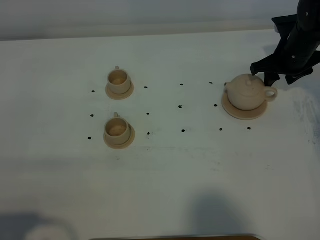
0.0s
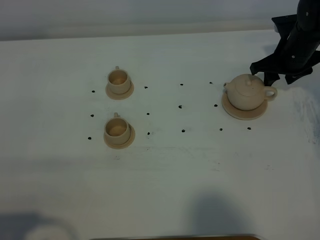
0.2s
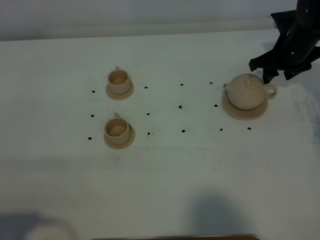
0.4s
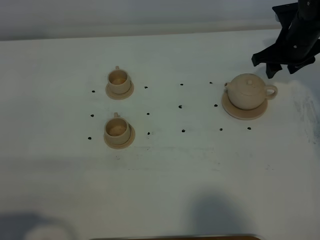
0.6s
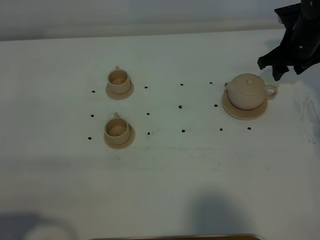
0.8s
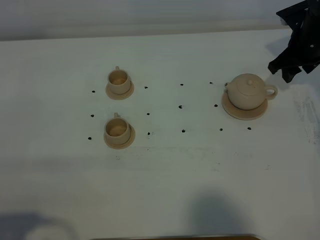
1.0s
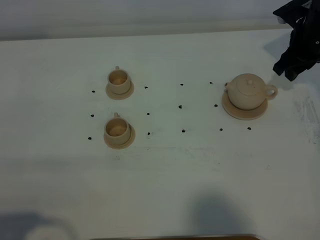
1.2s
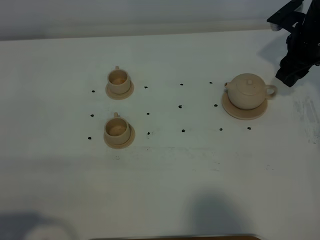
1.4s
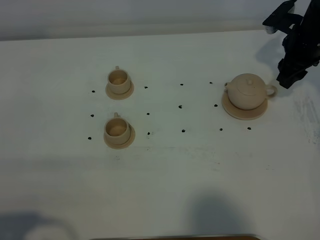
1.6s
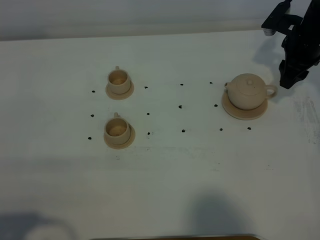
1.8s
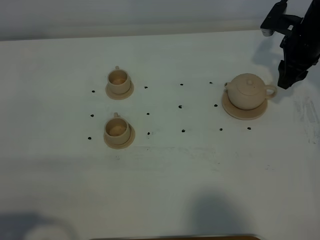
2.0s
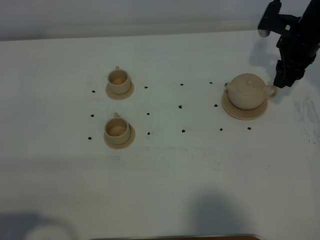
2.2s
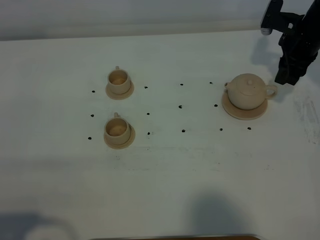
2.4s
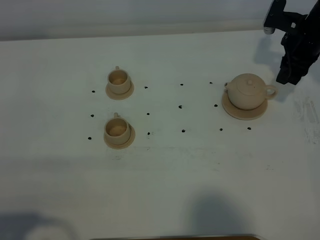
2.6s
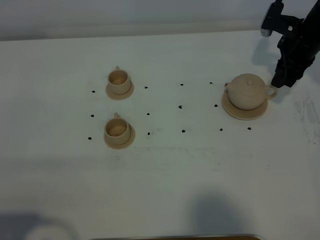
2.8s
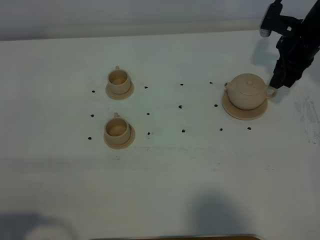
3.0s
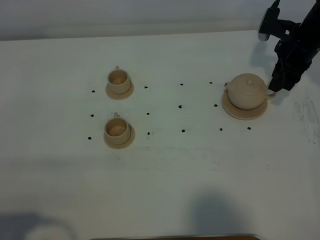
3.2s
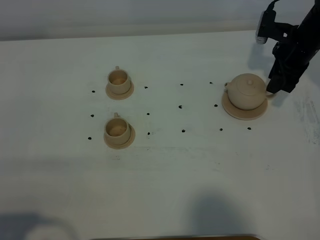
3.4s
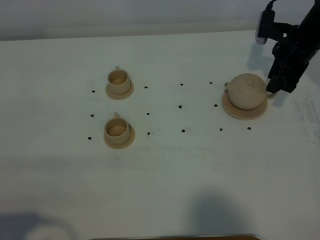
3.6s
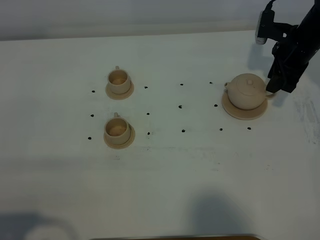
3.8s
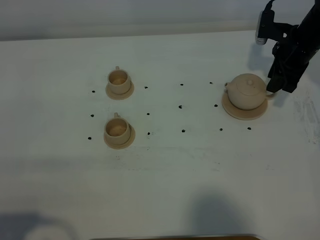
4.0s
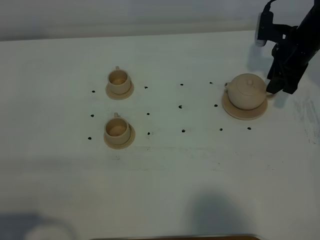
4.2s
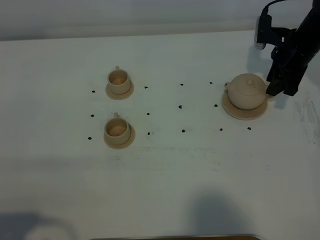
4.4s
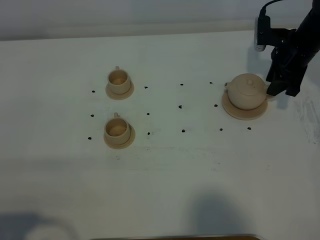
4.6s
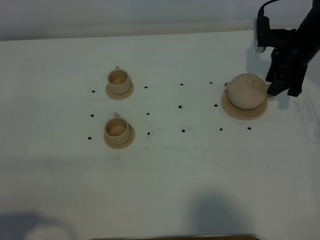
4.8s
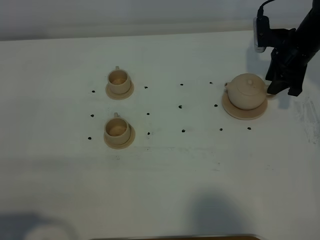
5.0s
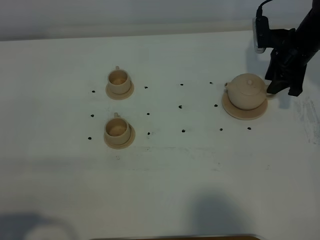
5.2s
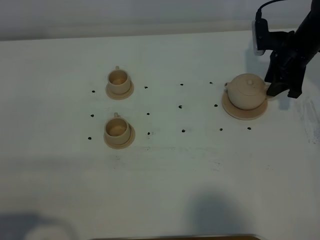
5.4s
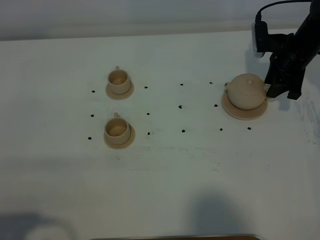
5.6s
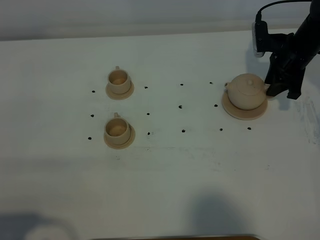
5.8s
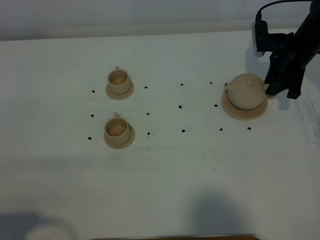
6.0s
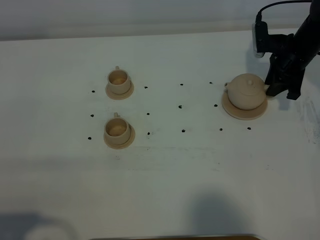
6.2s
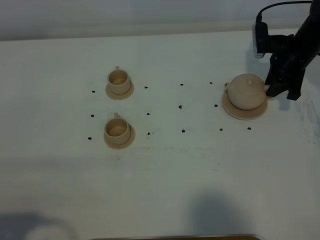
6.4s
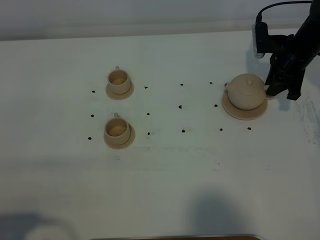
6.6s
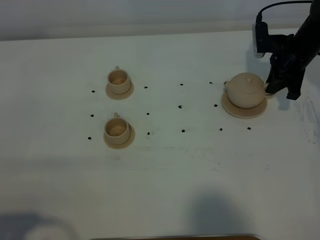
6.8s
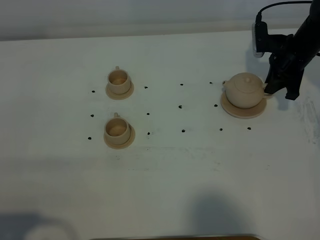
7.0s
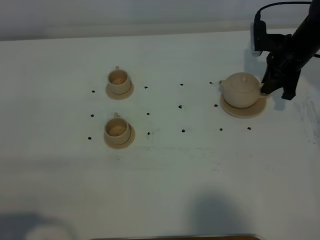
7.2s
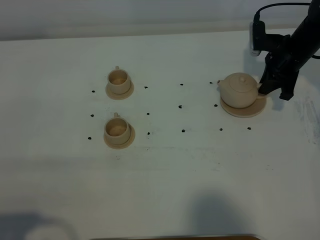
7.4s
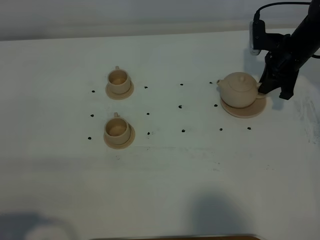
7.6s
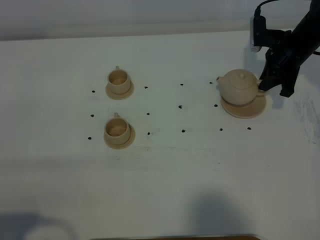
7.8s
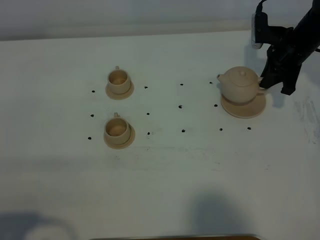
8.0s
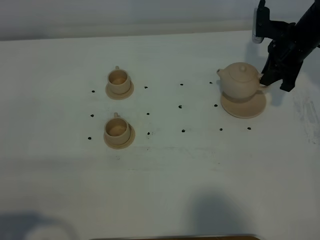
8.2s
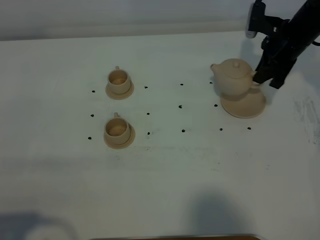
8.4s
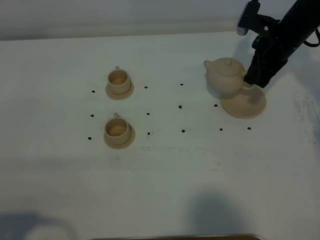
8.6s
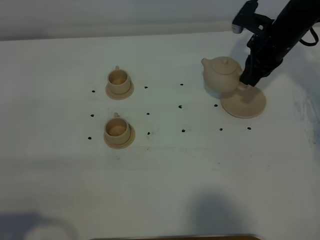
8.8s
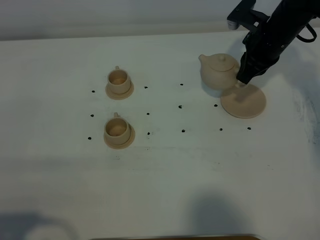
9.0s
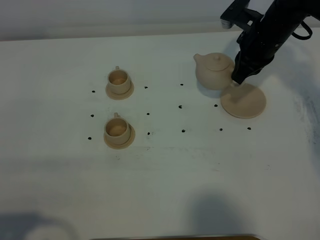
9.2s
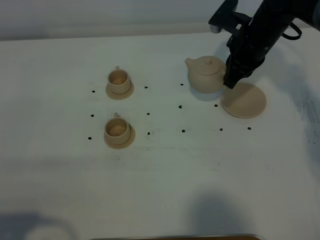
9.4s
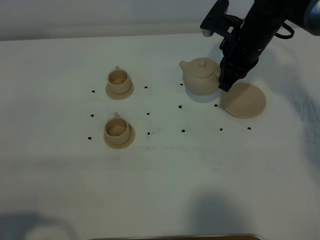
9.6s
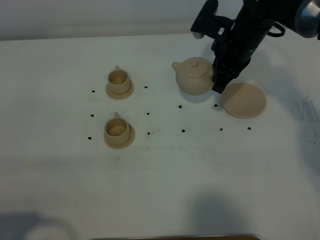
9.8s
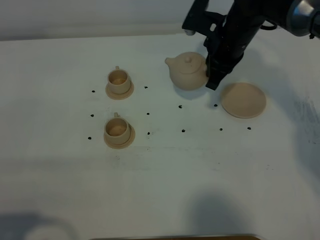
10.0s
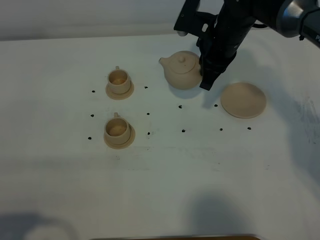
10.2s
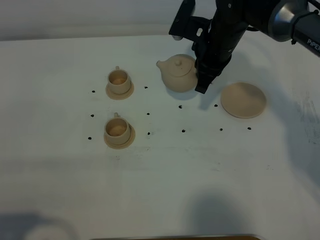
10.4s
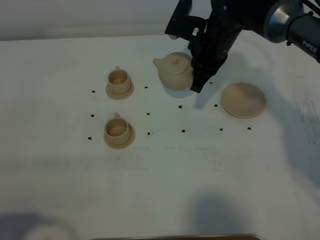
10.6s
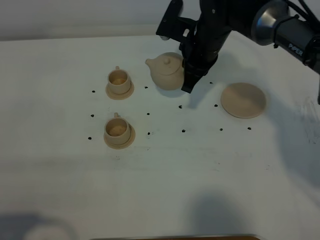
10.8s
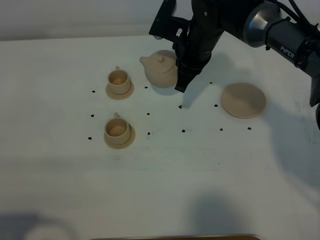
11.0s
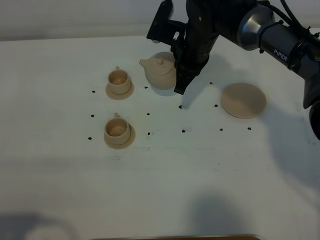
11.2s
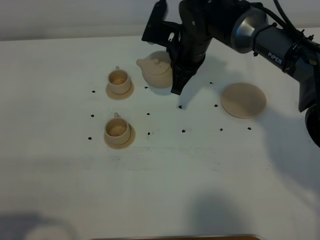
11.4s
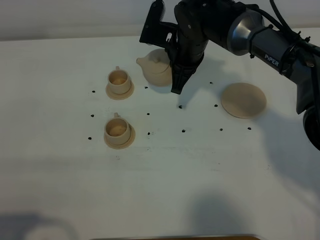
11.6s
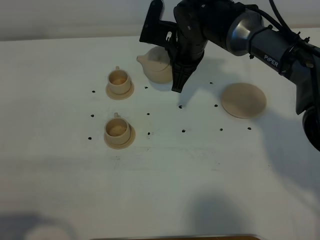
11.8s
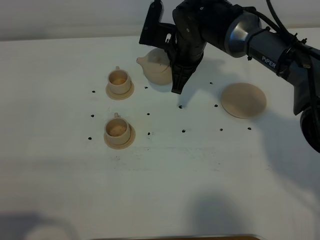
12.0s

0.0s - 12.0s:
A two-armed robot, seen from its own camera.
Task of the whole recording: grasp the brown teapot and pour the tea into the two brown teacups one by one, put the brown teapot back in its original place.
Step, 0.0s - 8.2s: Pick up the teapot with the right gripper.
1.6s - 3.0s: The grippers move only a little.
3.0s - 4.4s: The grippers make only small movements.
4.4s - 6.0s: The grippers make only small movements.
6.0s - 7.6s: The right gripper closes.
7.6s - 9.0s: The right gripper is displaced to the left and upward by about 10 cm.
9.0s - 10.4s: The right gripper goes roughly 10 cm to the left.
10.4s - 12.0s: The right gripper travels to the left by roughly 5 cm.

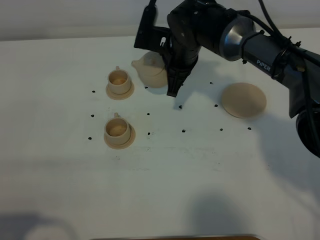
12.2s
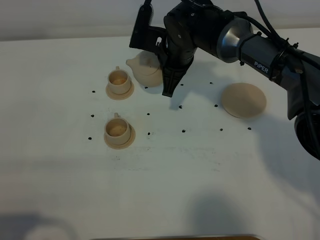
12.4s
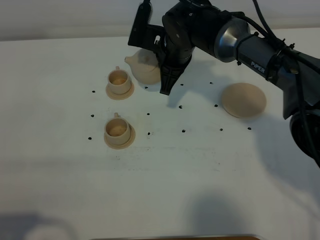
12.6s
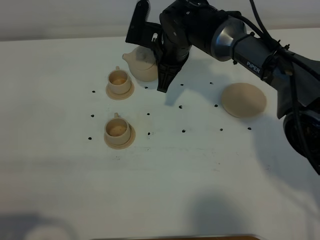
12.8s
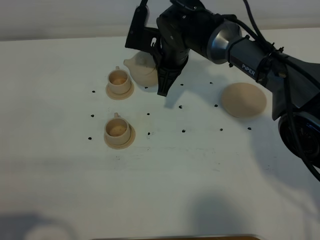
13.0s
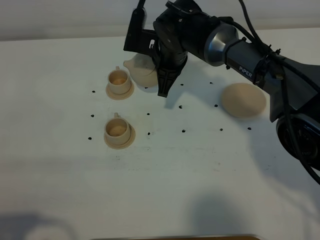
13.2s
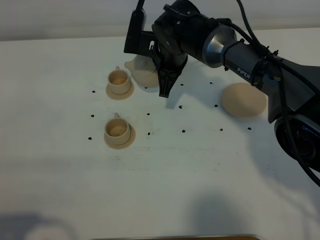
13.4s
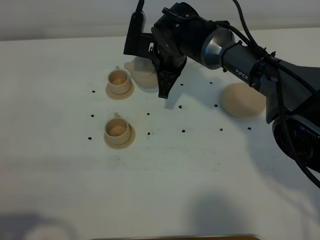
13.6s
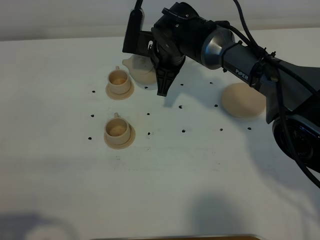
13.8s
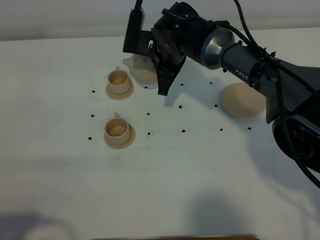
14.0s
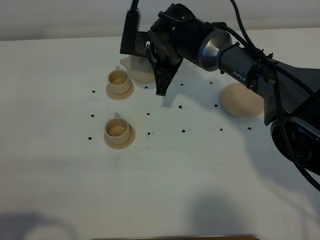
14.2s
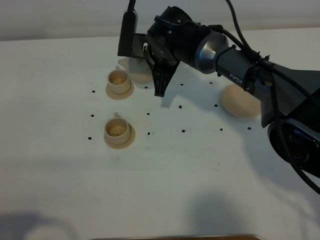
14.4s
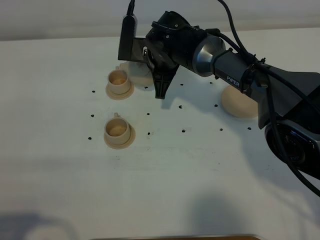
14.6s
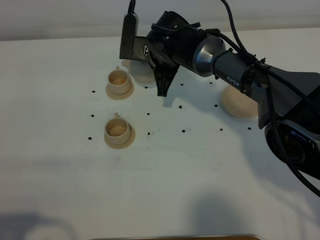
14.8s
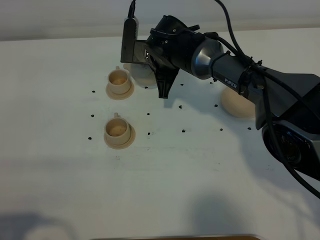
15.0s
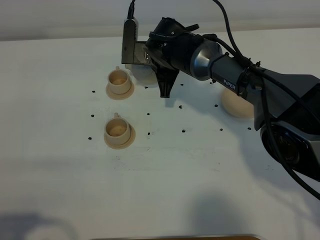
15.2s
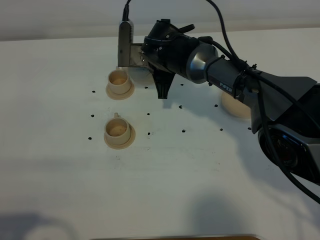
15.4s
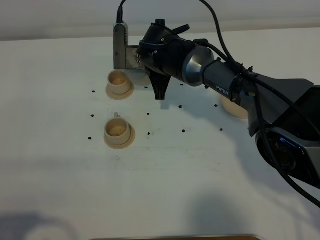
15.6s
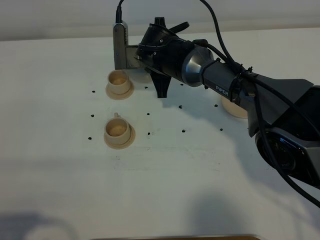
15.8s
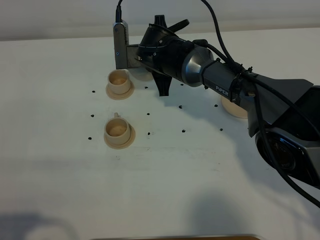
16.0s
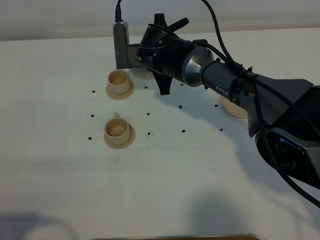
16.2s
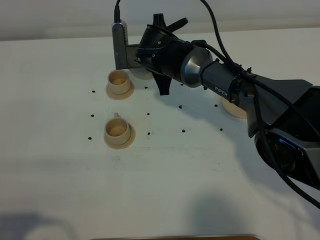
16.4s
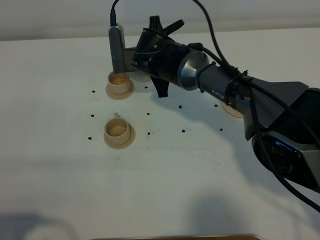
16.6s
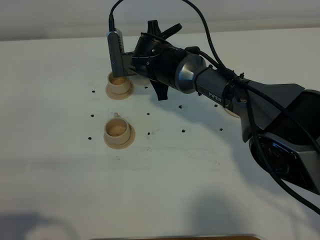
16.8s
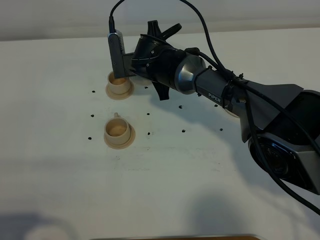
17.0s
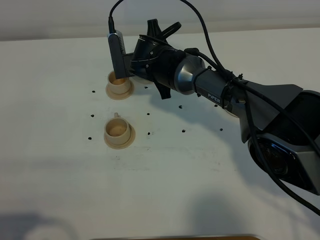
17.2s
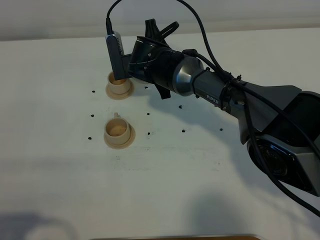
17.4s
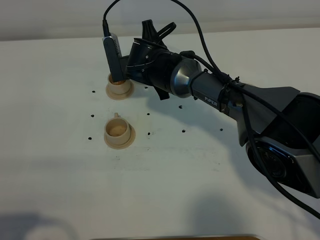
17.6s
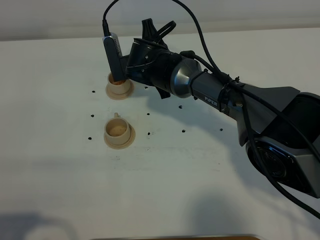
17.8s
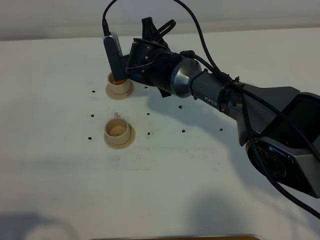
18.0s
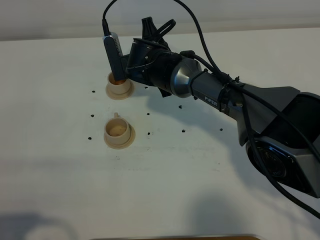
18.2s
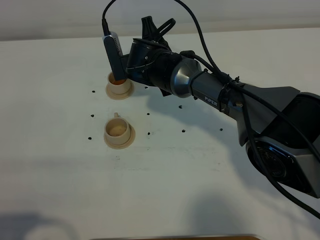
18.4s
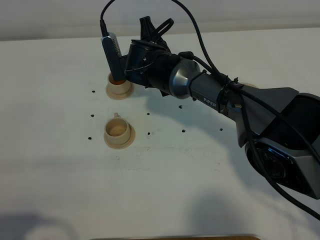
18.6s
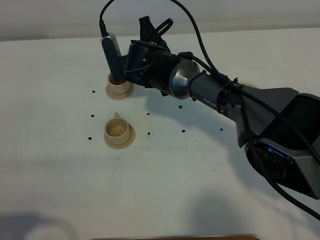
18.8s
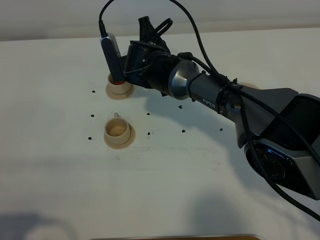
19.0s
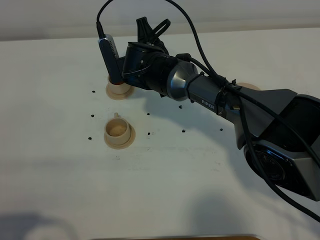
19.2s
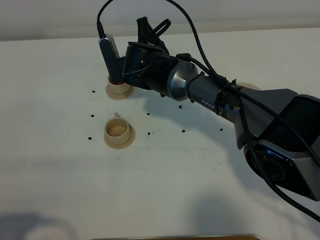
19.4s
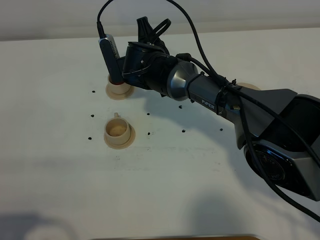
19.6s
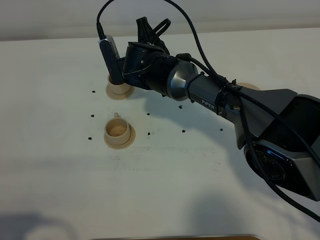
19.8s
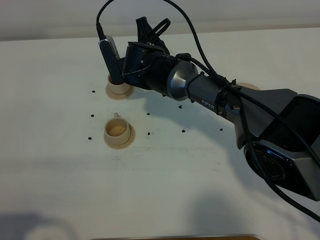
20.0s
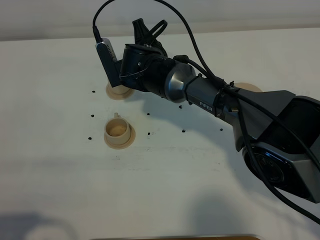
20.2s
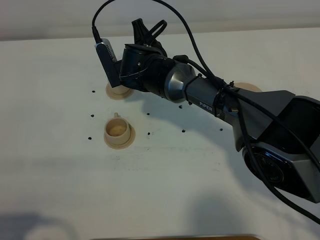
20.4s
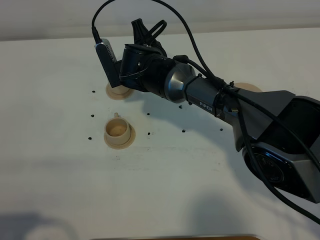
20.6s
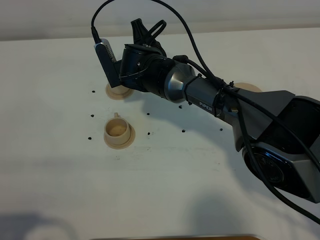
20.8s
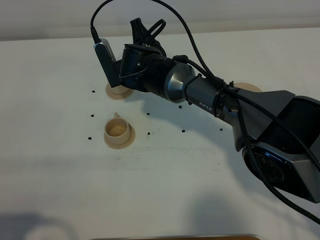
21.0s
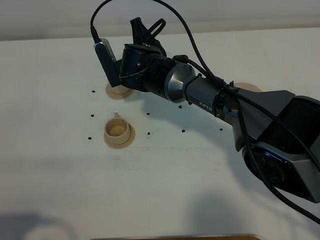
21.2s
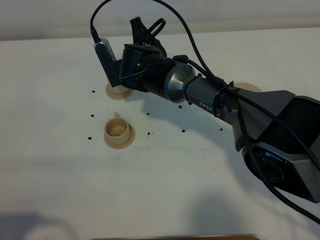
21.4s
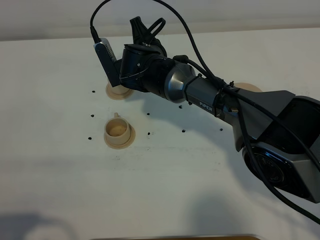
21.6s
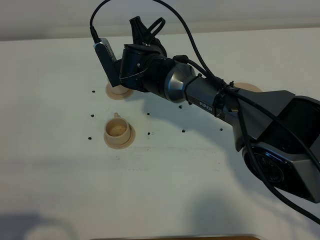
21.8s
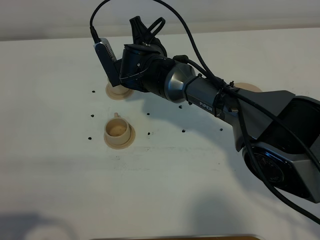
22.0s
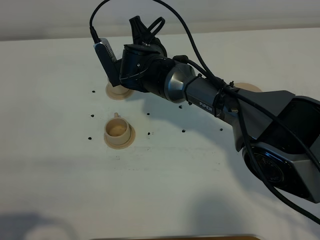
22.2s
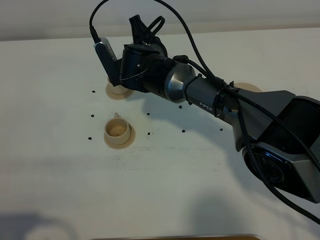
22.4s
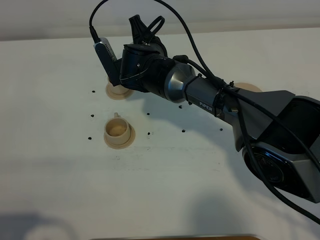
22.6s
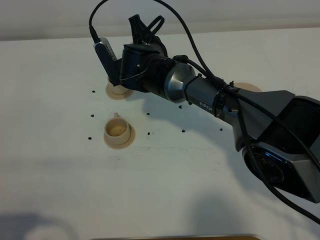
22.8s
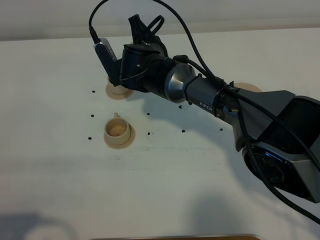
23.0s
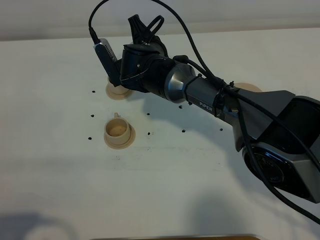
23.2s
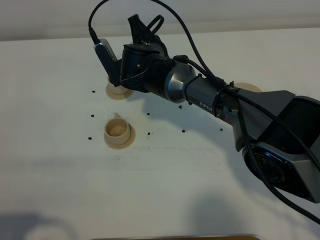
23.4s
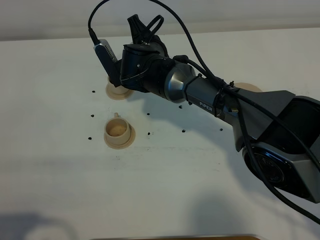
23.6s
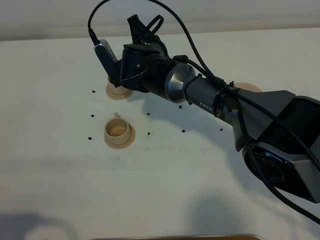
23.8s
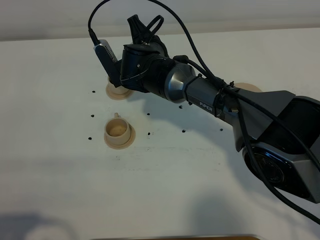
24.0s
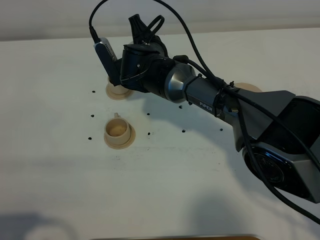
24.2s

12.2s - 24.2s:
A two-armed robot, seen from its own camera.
Task of the whole recording: grasp the brown teapot and pour the tea into the two brown teacups one by one, put the brown teapot back in its original place.
12.2s - 15.2s: The grippers stay close to where they were, moving slightly.
15.2s - 16.6s: The grippers make only small movements.
16.6s - 18.2s: The grippers move only a little.
18.2s - 19.8s: The two grippers keep their place.
19.8s - 21.2s: Neither gripper changes place.
21.2s - 22.6s: The two grippers keep their place.
22.6s - 24.2s: Both grippers stay put.
